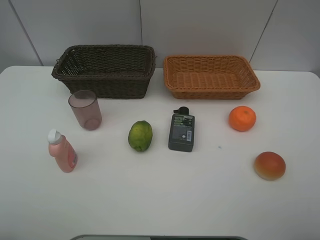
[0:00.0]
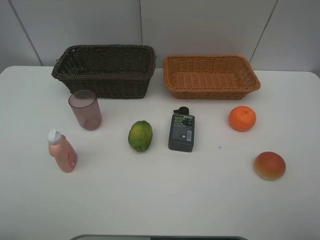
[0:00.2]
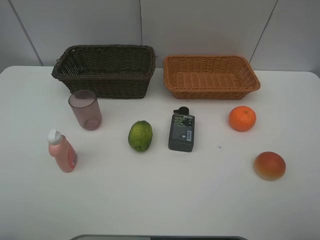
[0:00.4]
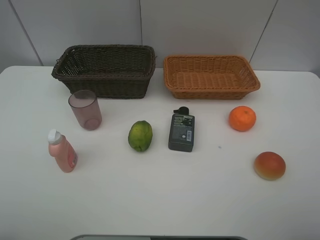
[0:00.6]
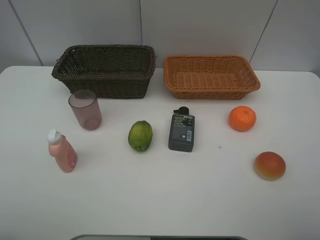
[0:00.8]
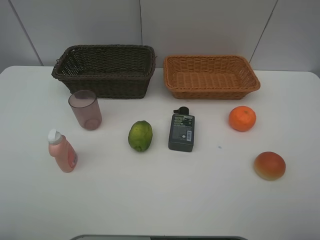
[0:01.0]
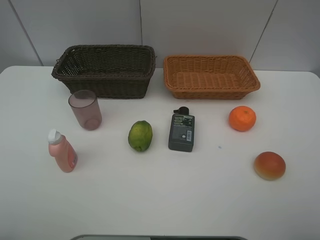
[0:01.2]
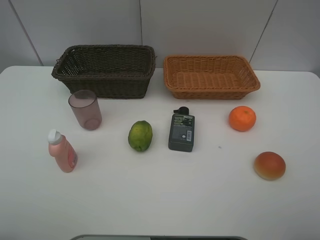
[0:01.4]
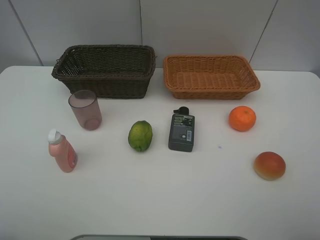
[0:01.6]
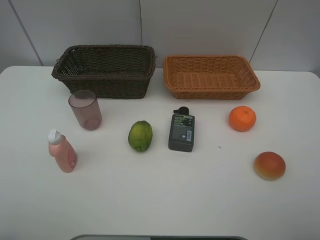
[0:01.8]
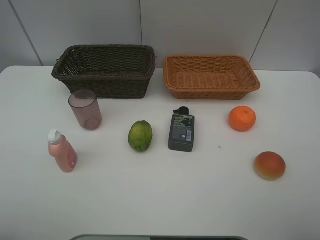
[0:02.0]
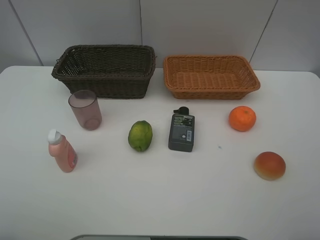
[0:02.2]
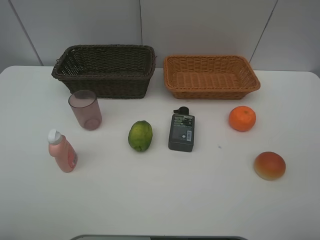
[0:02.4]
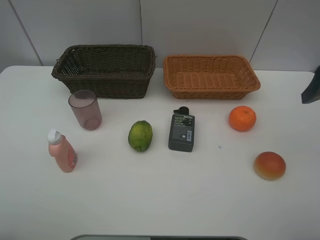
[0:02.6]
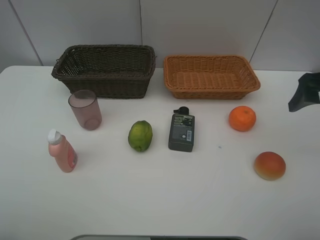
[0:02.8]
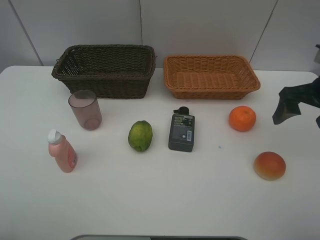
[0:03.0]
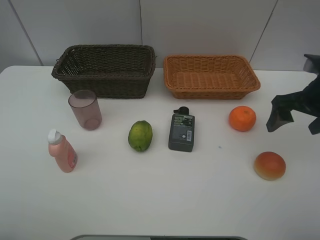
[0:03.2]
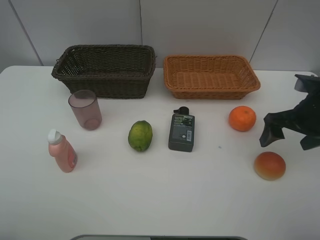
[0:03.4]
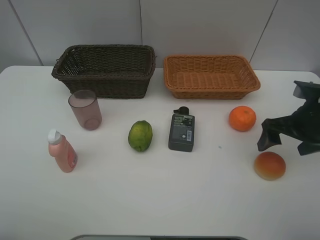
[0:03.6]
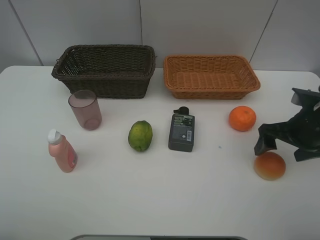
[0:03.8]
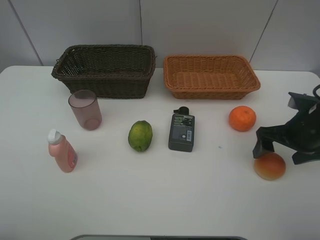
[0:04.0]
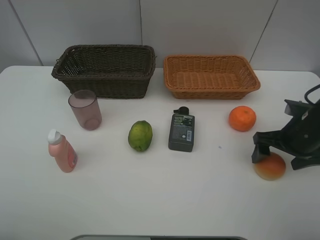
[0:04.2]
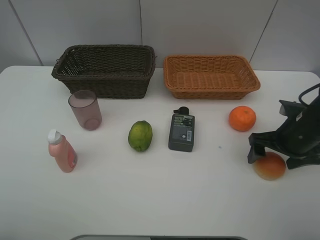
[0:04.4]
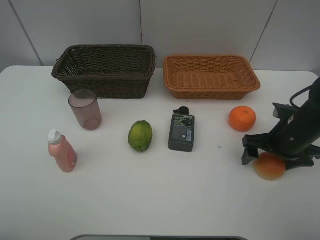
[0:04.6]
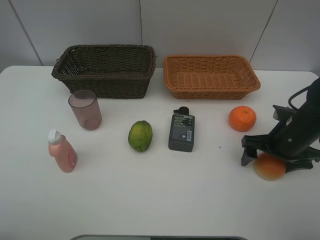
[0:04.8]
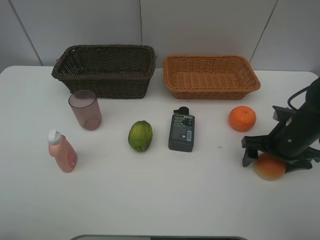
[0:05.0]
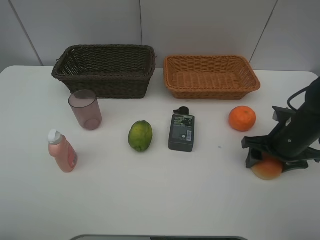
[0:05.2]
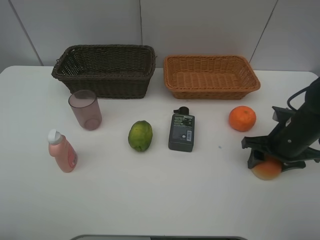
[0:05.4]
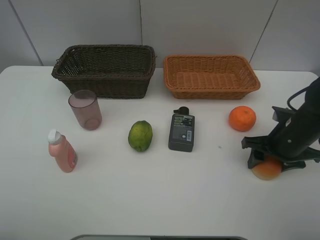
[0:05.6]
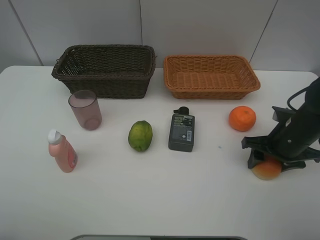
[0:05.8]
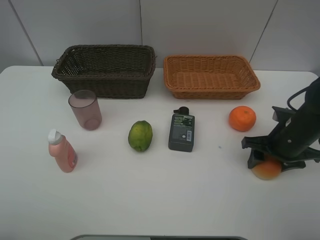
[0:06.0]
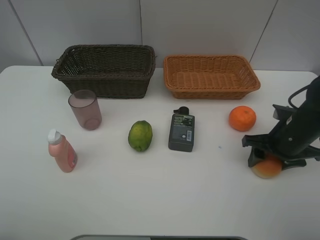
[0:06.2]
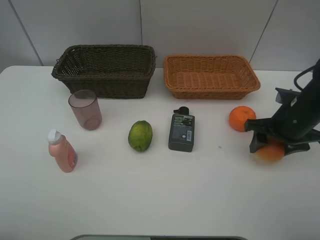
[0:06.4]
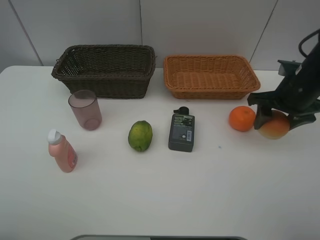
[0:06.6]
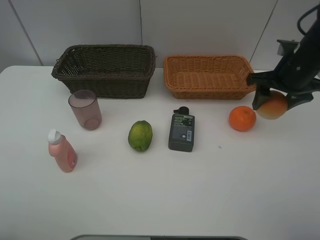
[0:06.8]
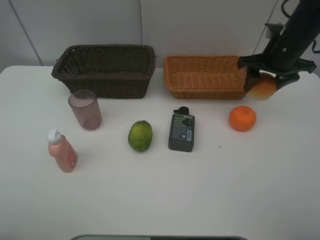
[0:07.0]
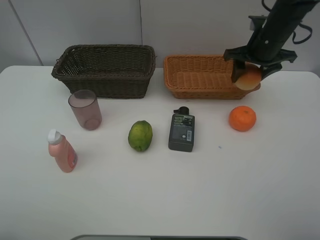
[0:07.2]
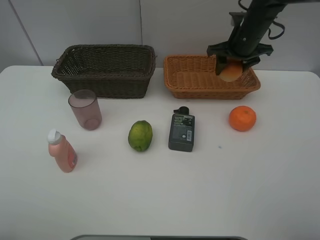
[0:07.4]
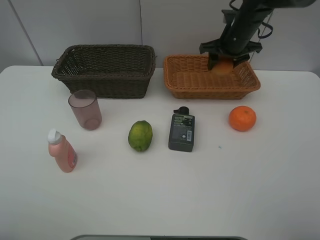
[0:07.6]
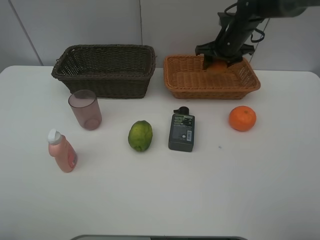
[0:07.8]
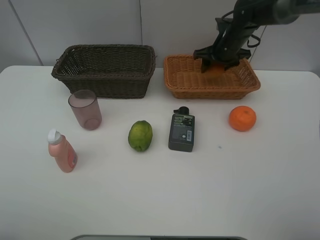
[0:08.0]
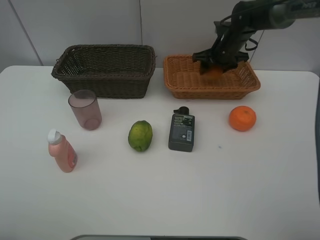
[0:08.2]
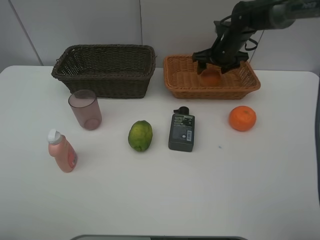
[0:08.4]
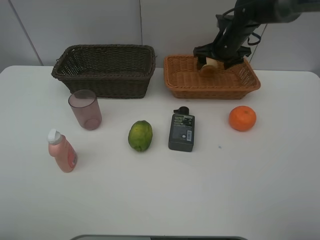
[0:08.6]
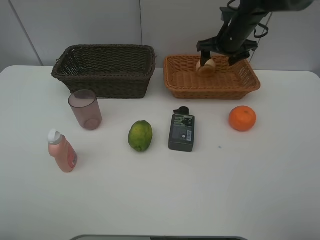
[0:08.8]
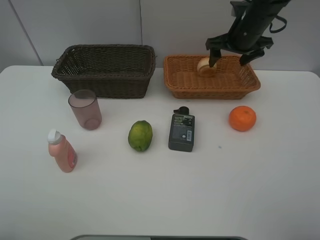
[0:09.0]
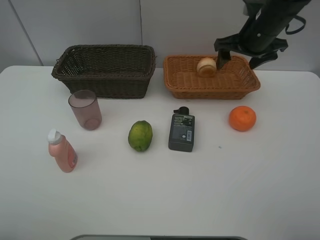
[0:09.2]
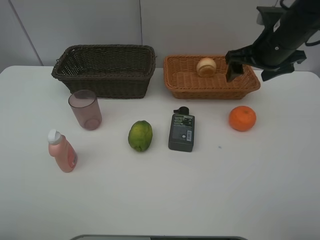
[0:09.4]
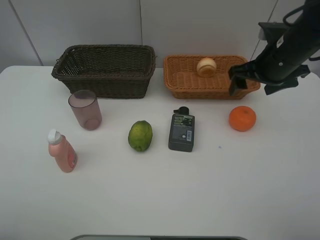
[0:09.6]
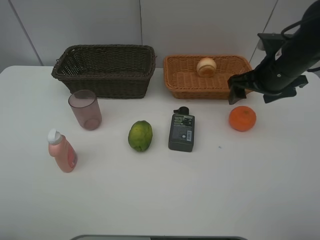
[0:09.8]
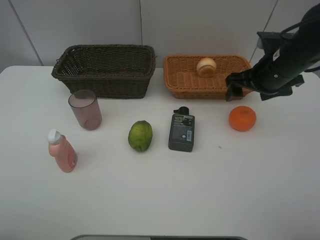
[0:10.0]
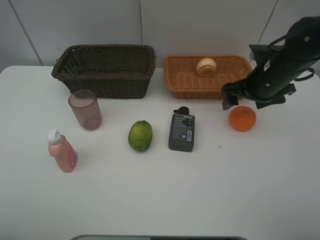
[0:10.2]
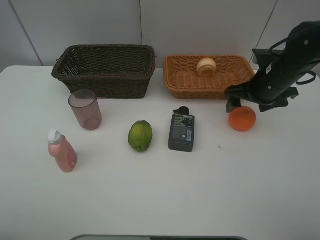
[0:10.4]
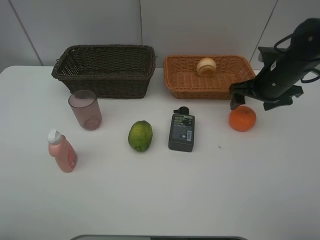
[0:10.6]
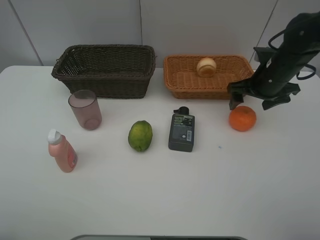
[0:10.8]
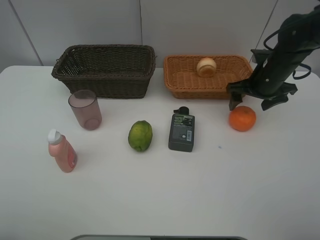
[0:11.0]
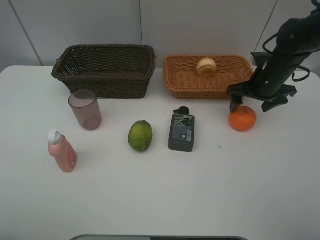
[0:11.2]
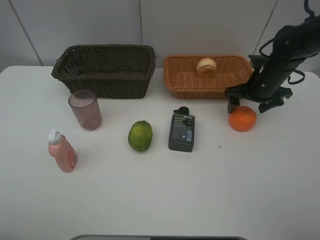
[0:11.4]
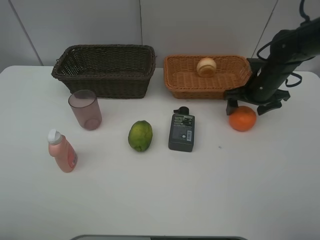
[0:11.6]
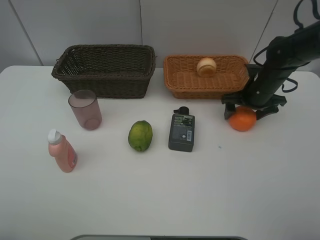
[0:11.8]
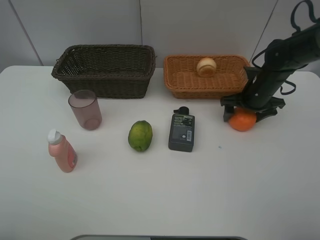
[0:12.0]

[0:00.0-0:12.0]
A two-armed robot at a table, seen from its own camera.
Task of the whole recording: place multiple objects separately in different baskets.
0:00.0 to 0:01.6: Neither gripper changes place.
0:01.6 to 0:03.0: The right gripper moves forward, about 25 cm.
0:03.0 to 0:04.4: The right gripper heads downward, covering some 10 cm.
0:04.4 to 0:06.0: The right gripper closes up.
0:06.0 to 0:07.6: The right gripper travels forward and upward by about 25 cm.
0:07.6 to 0:09.0: The right gripper ends up roughly 5 cm from where it was, and opens up.
0:09.0 to 0:10.4: The right gripper goes some 10 cm backward and downward.
0:10.4 to 0:12.0: The right gripper travels downward by some 5 cm.

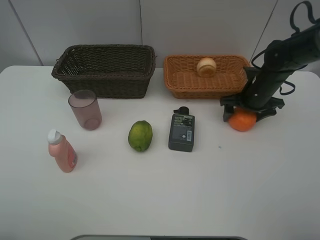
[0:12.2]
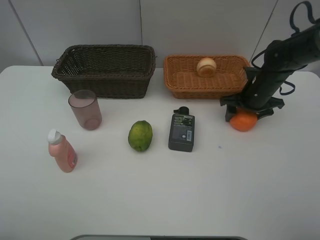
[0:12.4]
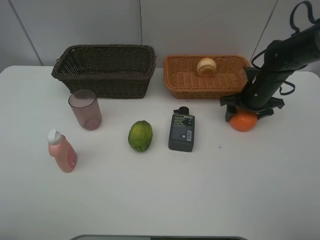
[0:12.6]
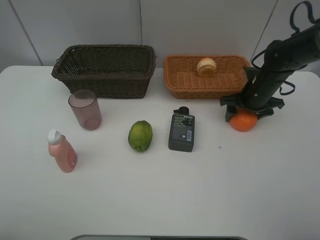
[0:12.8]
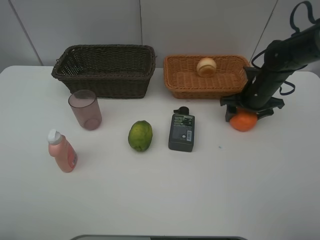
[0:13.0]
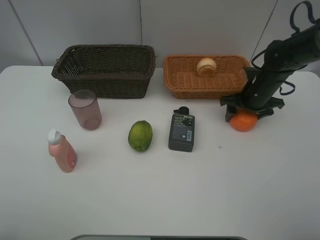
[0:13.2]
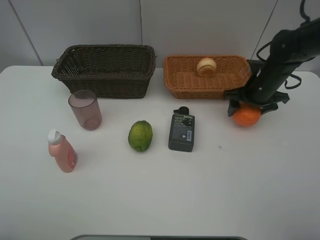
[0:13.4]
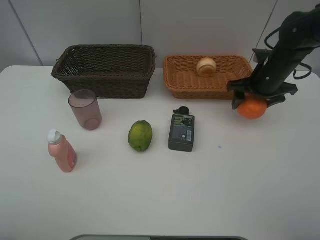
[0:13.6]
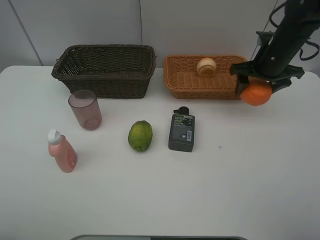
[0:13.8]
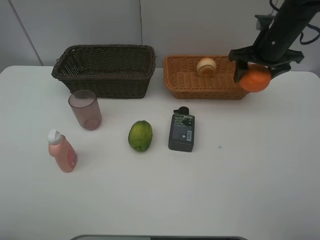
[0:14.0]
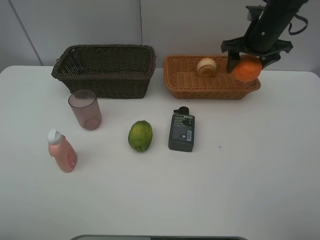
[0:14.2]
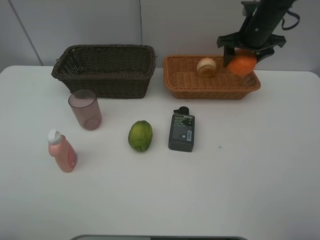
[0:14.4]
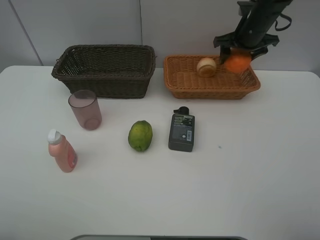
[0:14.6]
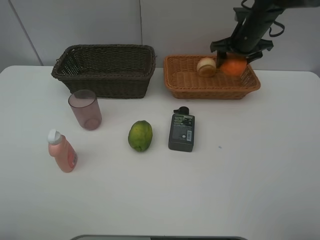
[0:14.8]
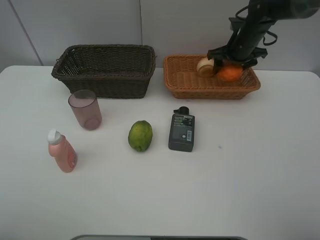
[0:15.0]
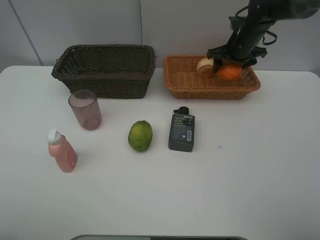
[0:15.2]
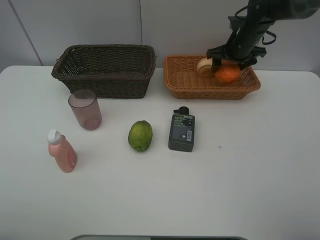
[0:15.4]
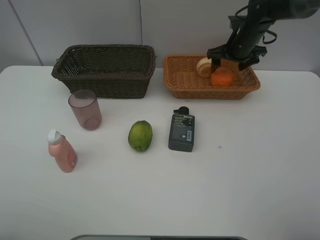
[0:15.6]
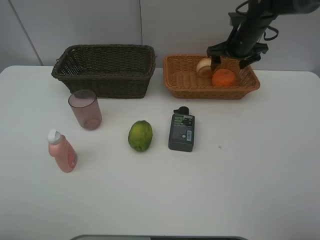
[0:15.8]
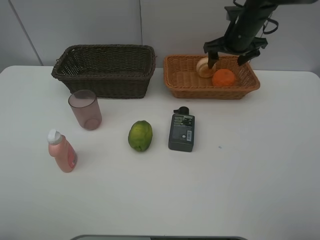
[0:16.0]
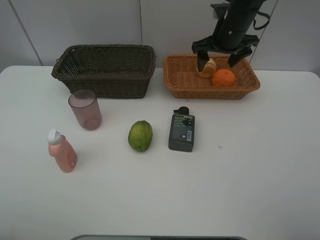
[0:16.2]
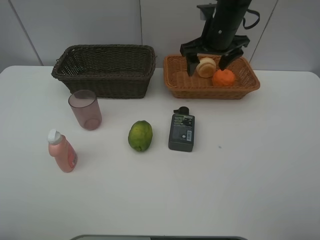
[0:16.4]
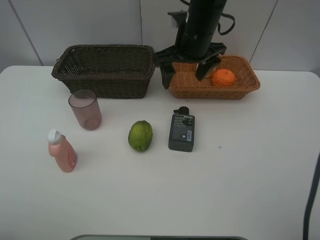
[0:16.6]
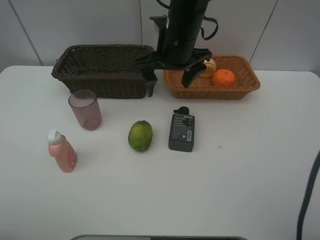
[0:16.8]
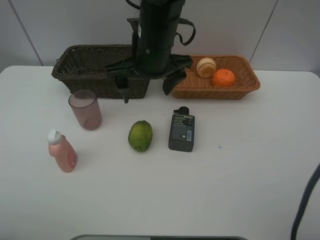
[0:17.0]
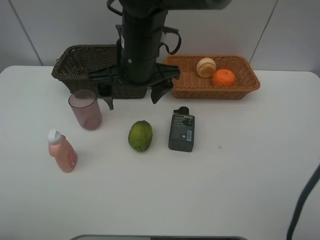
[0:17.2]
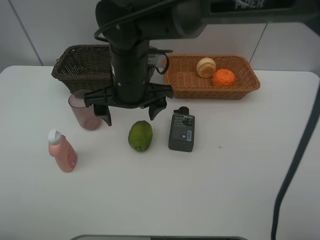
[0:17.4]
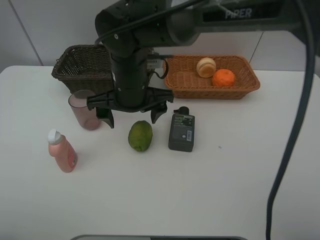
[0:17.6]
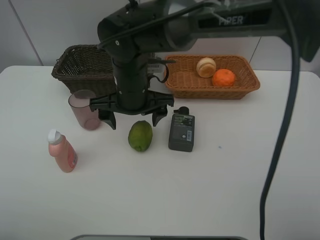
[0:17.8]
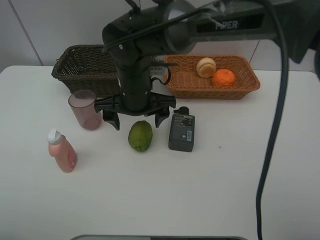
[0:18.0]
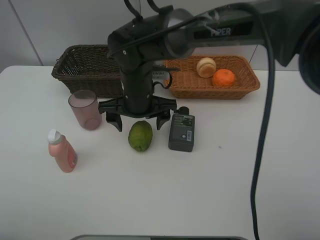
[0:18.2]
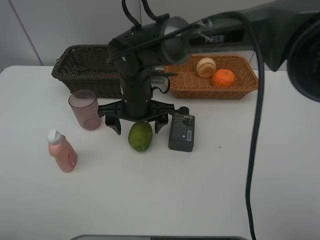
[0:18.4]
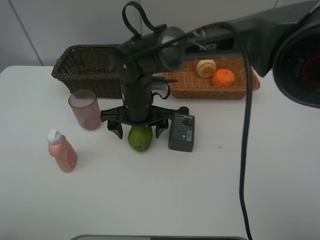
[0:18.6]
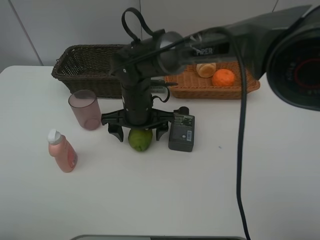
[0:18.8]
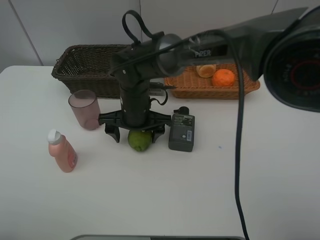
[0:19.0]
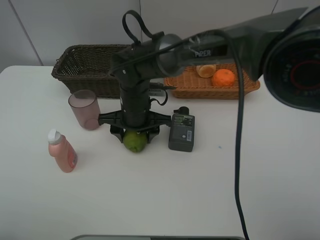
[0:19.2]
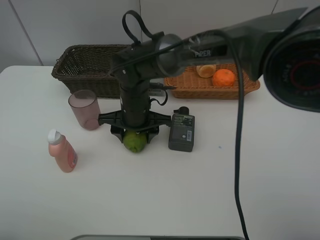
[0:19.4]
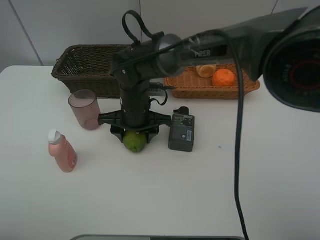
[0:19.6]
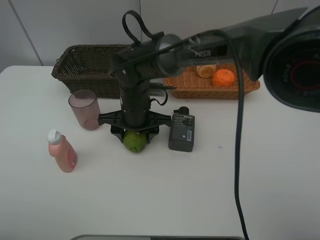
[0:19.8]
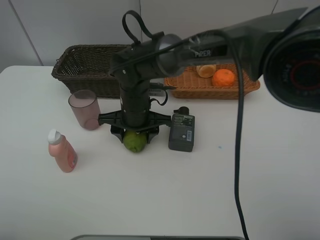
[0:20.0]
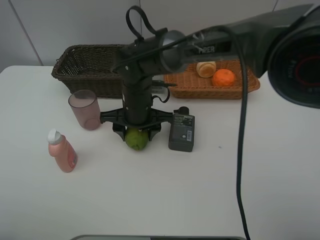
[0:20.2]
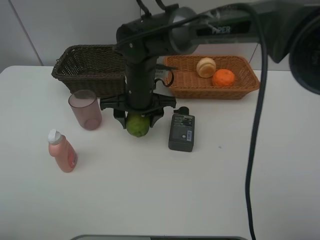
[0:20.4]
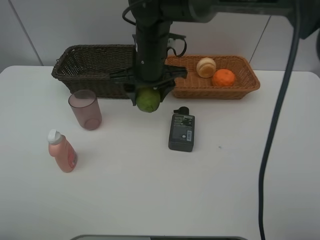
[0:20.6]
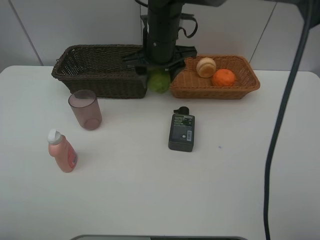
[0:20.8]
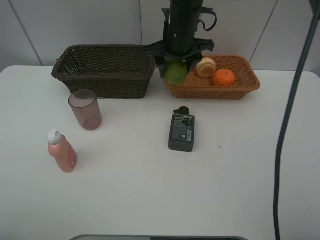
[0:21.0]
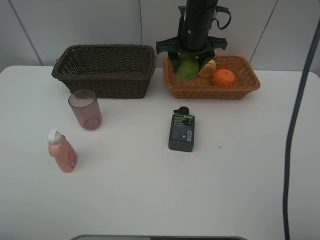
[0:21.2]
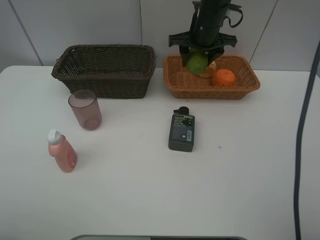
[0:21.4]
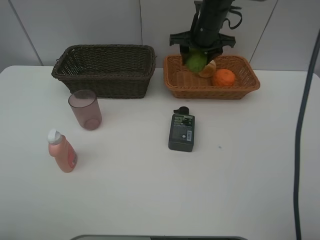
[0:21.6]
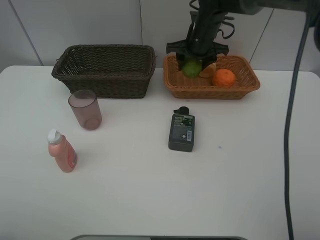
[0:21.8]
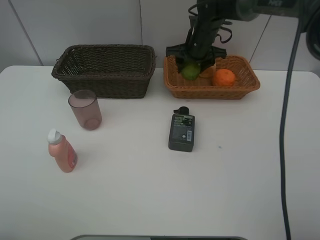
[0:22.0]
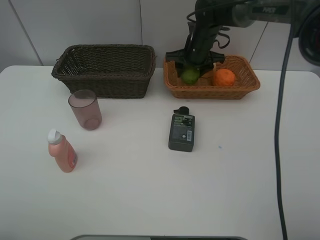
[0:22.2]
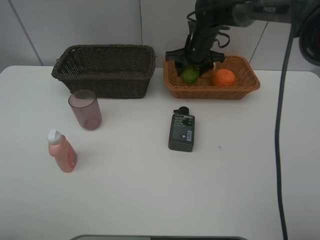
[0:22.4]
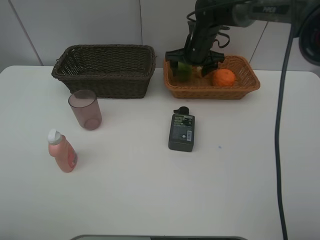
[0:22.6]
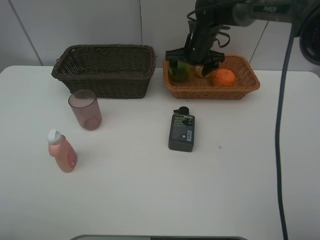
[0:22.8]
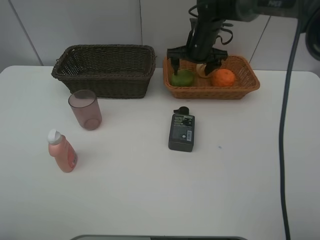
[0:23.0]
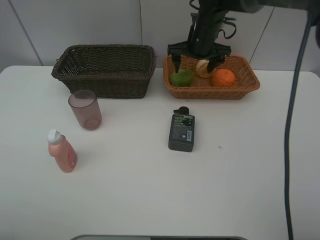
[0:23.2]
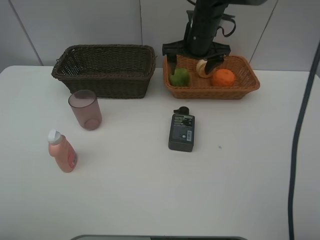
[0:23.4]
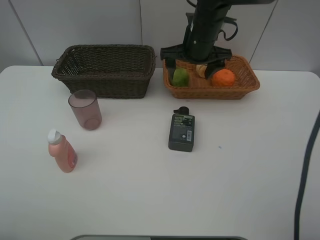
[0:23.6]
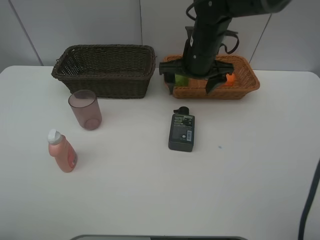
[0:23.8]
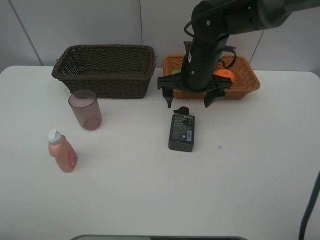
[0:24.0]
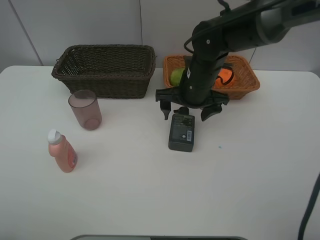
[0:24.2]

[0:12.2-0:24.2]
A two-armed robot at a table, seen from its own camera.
Task of the whole recording: place multiple objects separately in different baskets.
0:12.2 to 0:13.8: The right gripper heads upward, covering about 10 cm, and closes its fingers.
0:13.8 to 0:15.2: The right gripper travels forward by approximately 10 cm.
0:15.2 to 0:16.6: The right gripper shifts approximately 20 cm to the left and backward, and opens up.
0:16.6 to 0:18.2: The right gripper heads to the left, downward and backward, covering about 15 cm.
0:18.2 to 0:19.8: The right gripper closes its fingers.
0:19.8 to 0:21.2: The right gripper moves to the right, upward and forward, about 20 cm.
0:21.2 to 0:22.6: The right gripper goes some 5 cm downward, and opens up.
0:22.6 to 0:24.2: The right gripper moves backward, roughly 15 cm.
